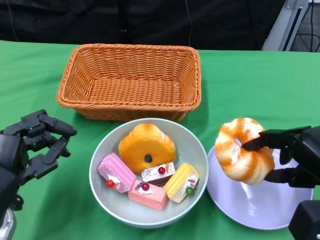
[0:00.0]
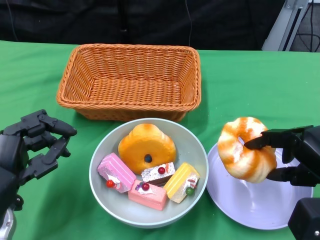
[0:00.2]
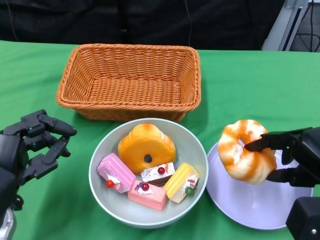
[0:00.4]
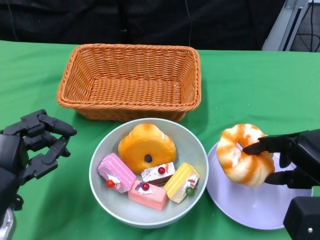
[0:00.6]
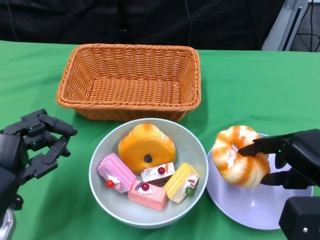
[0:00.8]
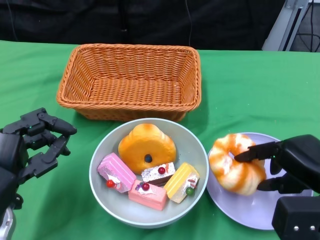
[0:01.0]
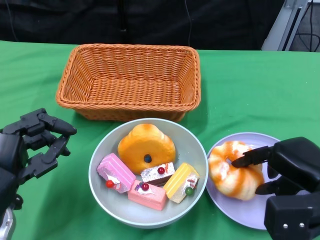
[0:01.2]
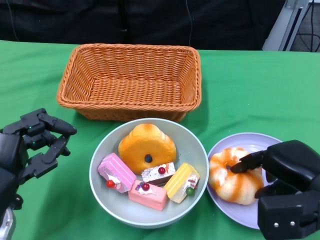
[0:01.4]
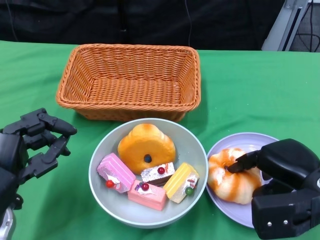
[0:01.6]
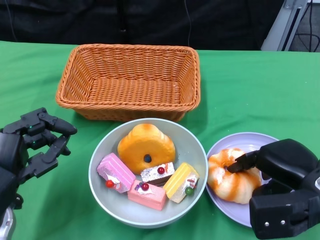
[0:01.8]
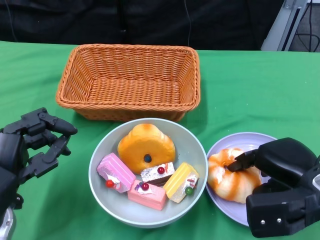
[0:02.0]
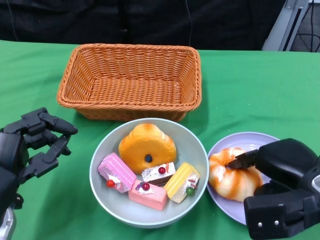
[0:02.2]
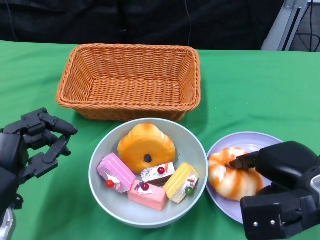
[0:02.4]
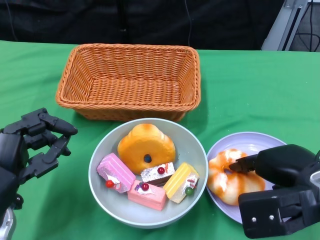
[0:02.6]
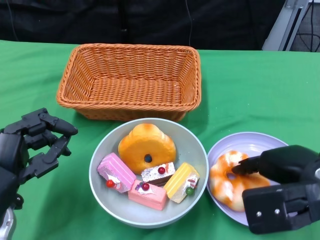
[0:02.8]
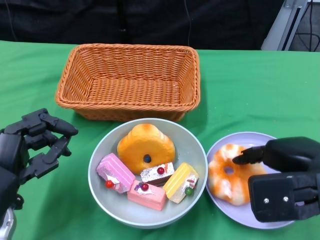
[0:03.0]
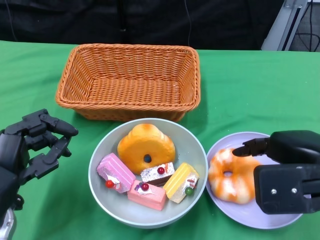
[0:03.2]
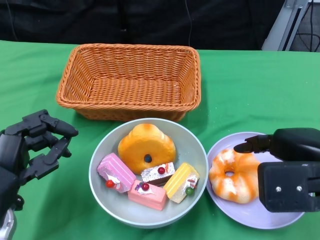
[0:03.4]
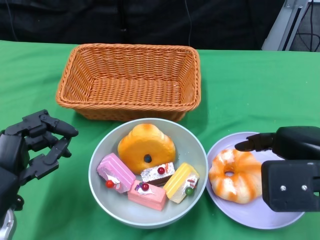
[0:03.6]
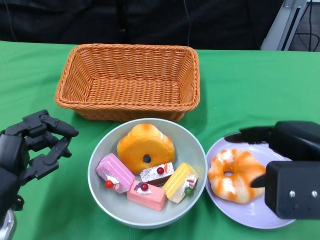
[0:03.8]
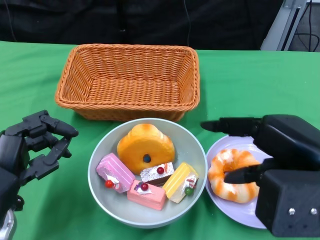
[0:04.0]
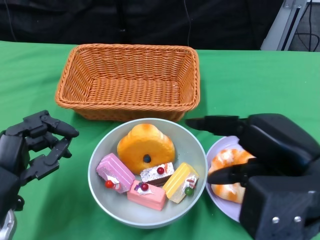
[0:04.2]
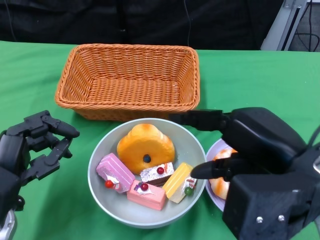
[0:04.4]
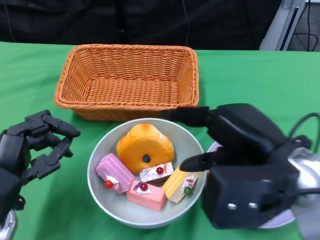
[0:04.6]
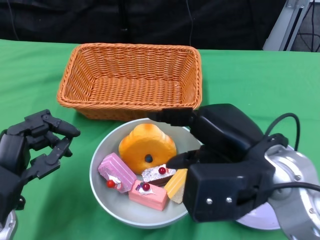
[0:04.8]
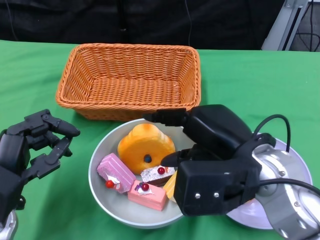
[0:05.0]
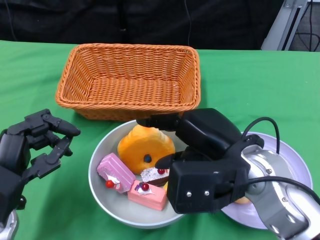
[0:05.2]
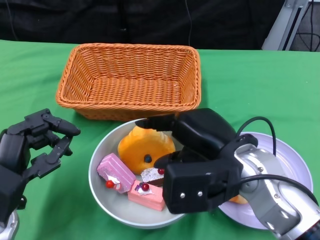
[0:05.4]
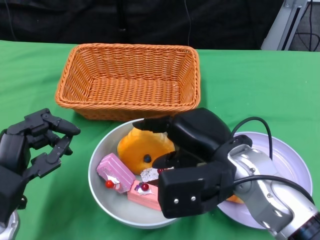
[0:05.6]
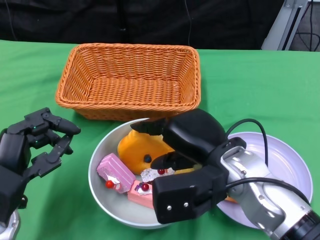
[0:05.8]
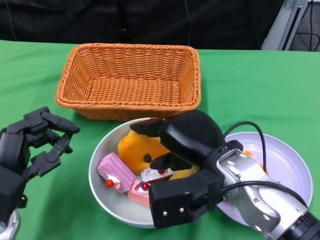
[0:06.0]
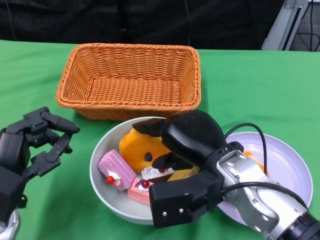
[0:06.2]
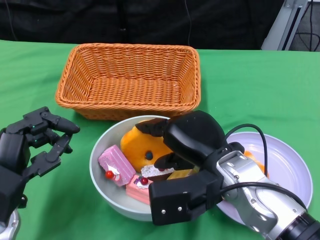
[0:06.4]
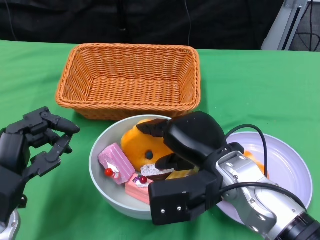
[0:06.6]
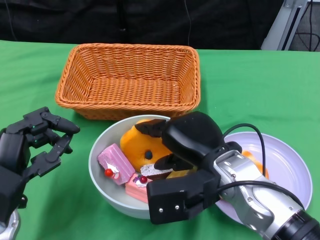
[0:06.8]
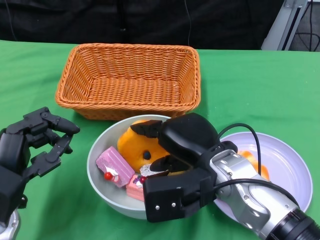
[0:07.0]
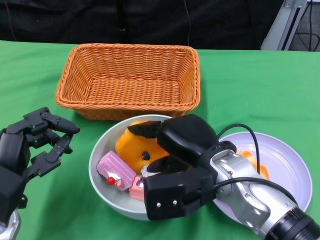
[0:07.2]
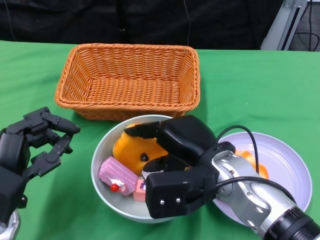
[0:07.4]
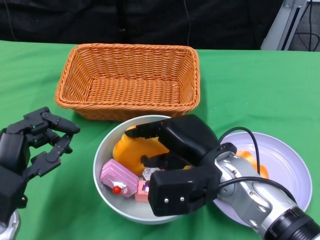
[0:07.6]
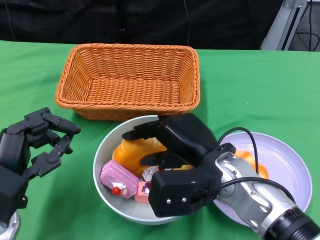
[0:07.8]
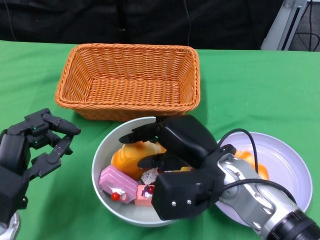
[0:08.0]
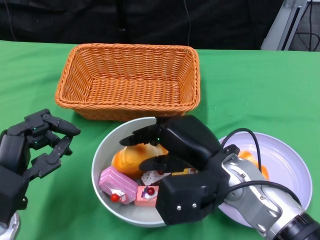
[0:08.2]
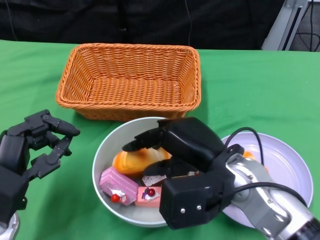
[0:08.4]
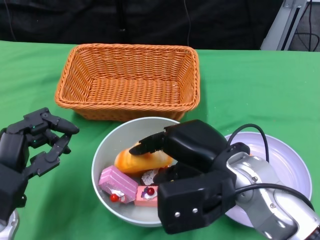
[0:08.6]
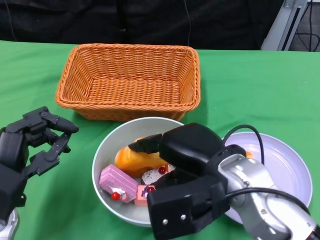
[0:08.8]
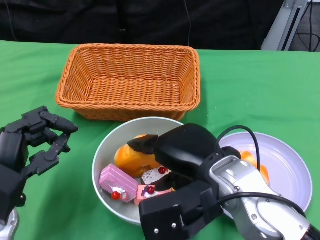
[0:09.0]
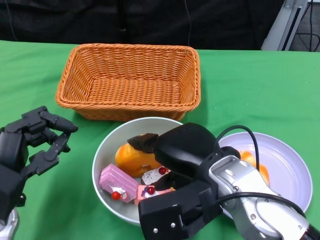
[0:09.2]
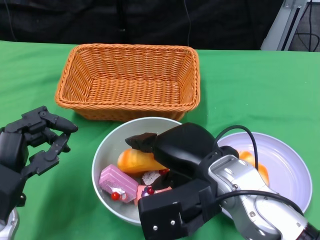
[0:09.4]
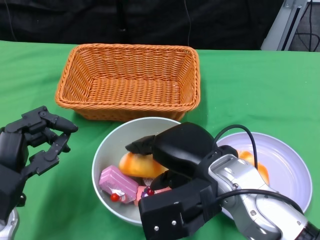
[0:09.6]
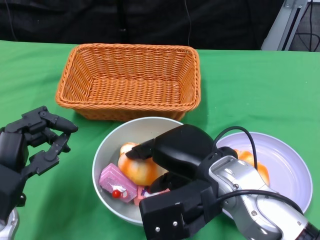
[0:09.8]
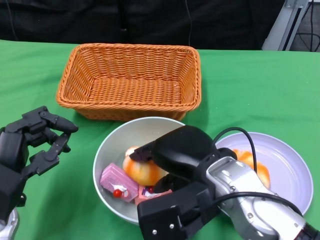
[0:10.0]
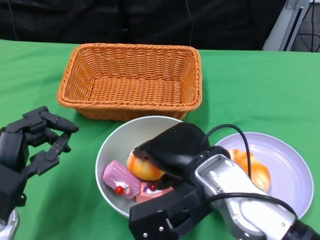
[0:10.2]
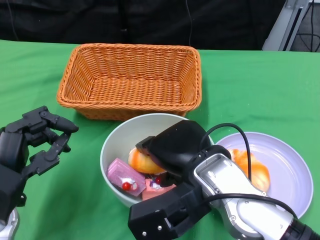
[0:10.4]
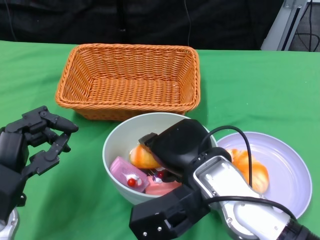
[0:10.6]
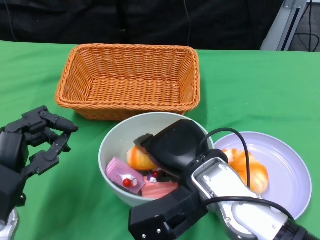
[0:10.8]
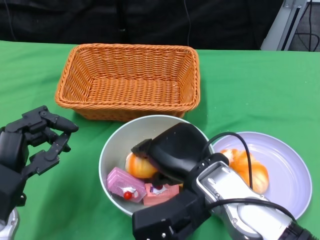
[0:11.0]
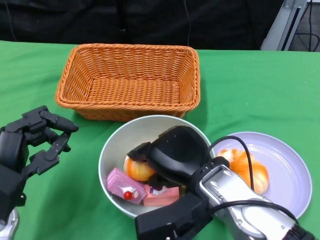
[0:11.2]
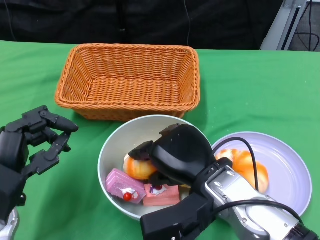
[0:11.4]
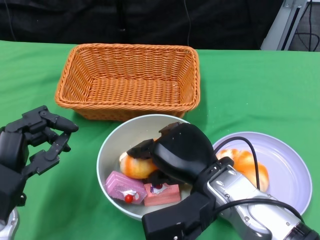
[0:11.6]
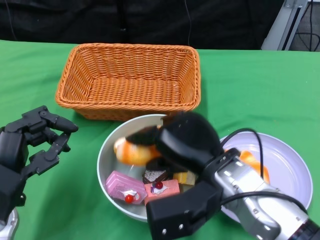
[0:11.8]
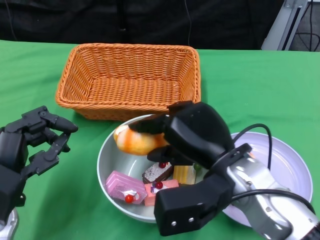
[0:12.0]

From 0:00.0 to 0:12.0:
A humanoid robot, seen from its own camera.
Step, from 0:00.0 to 0:03.4: Pick up the bread with the right gripper and place it on the plate.
From 0:00.0 to 0:01.6: The right hand moves roughly 5 cm.
From 0:01.6 to 0:03.0: The right hand is displaced upward by some 5 cm.
From 0:03.0 to 0:04.4: The right hand shifts by roughly 10 cm.
From 0:04.4 to 0:06.0: The right hand is displaced to the left, downward and forward by roughly 15 cm.
From 0:06.0 to 0:07.6: The hands move only a little.
From 0:09.0 to 0:10.4: The hands make only small movements.

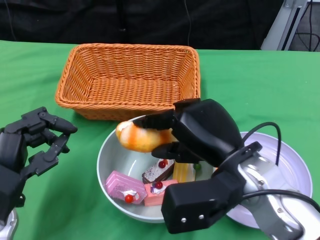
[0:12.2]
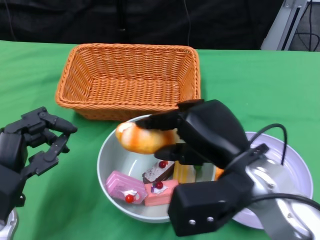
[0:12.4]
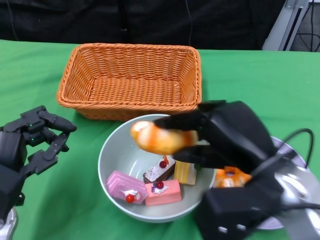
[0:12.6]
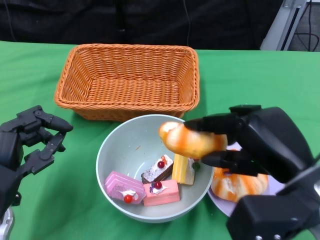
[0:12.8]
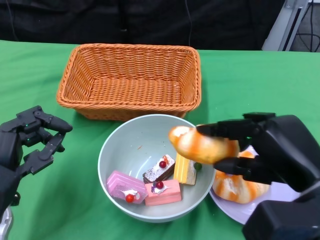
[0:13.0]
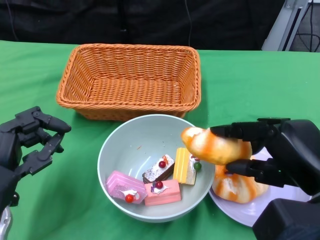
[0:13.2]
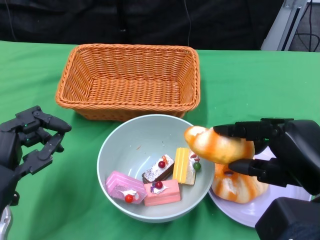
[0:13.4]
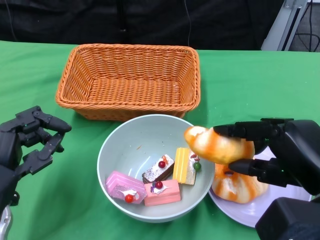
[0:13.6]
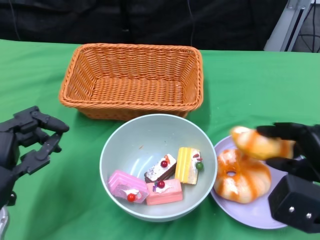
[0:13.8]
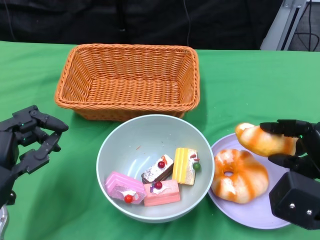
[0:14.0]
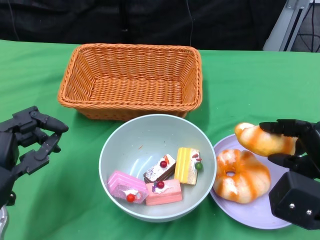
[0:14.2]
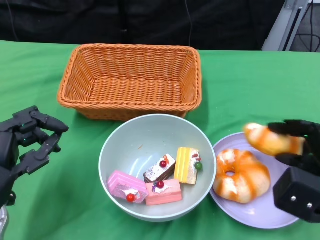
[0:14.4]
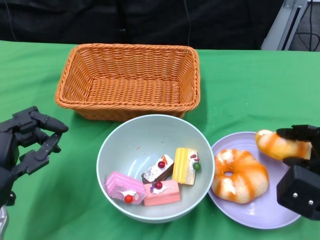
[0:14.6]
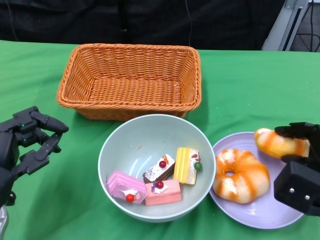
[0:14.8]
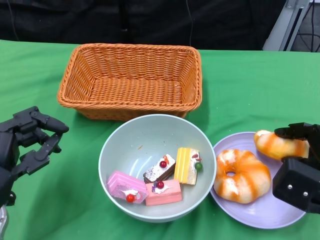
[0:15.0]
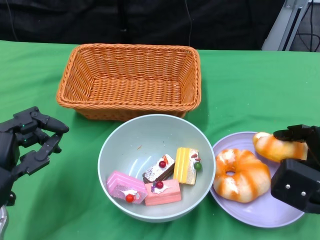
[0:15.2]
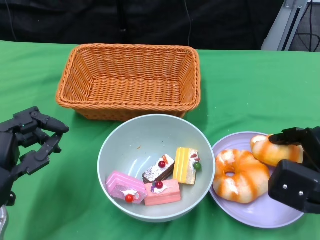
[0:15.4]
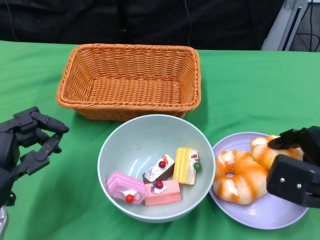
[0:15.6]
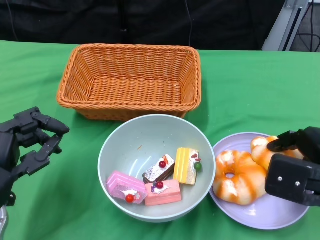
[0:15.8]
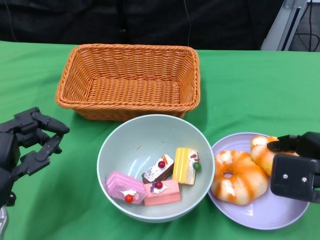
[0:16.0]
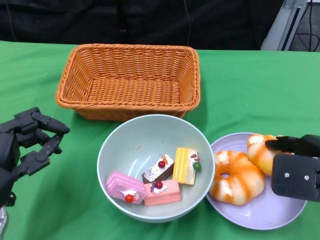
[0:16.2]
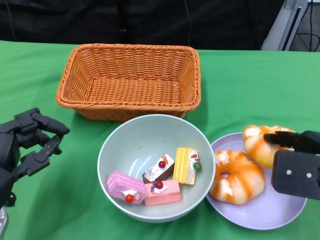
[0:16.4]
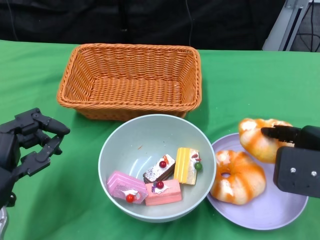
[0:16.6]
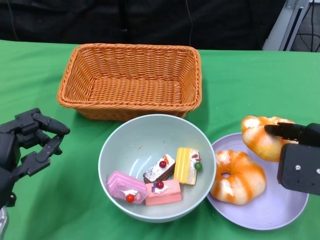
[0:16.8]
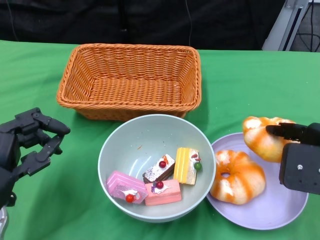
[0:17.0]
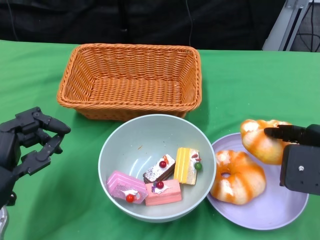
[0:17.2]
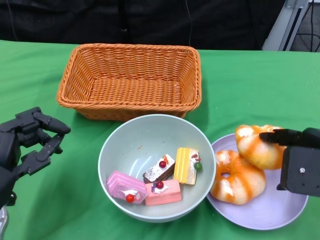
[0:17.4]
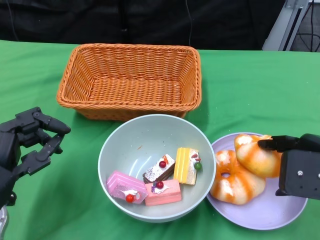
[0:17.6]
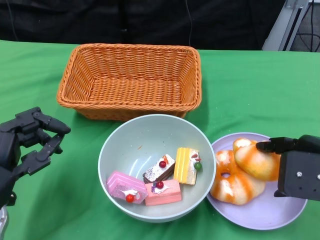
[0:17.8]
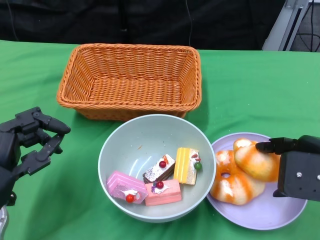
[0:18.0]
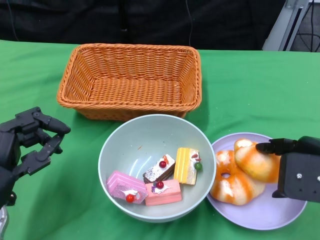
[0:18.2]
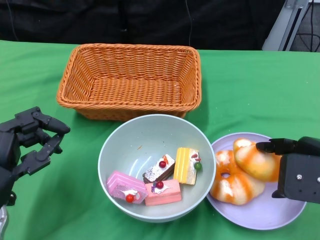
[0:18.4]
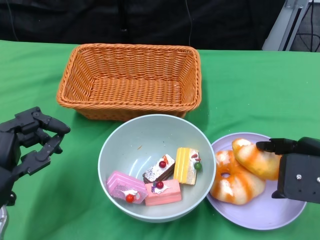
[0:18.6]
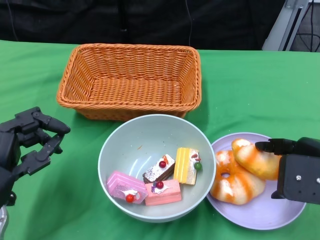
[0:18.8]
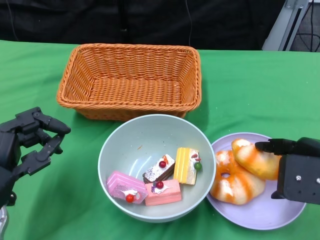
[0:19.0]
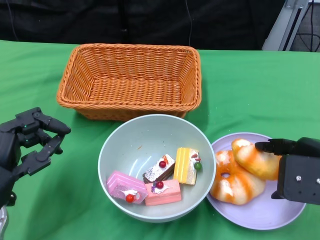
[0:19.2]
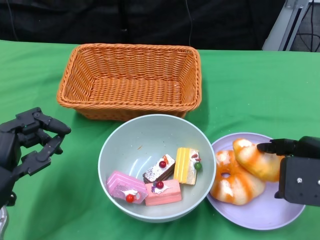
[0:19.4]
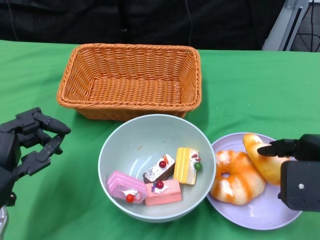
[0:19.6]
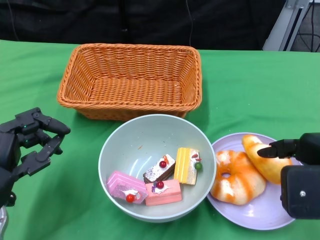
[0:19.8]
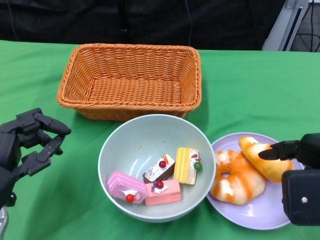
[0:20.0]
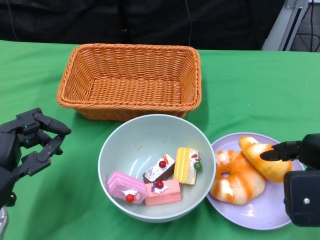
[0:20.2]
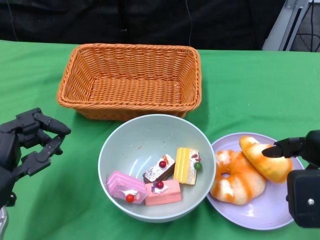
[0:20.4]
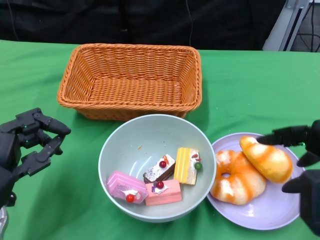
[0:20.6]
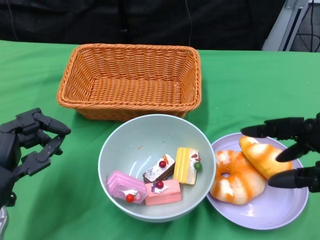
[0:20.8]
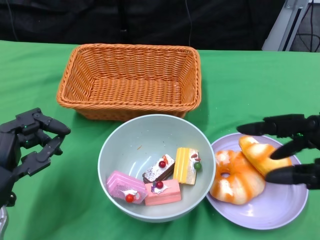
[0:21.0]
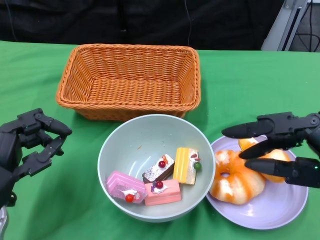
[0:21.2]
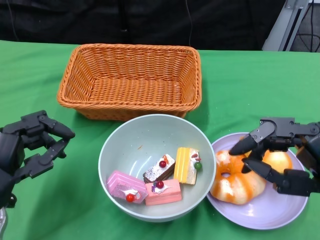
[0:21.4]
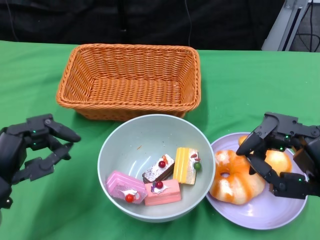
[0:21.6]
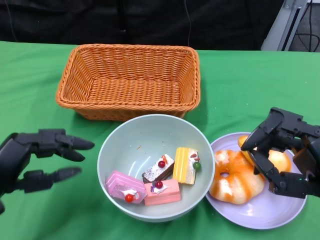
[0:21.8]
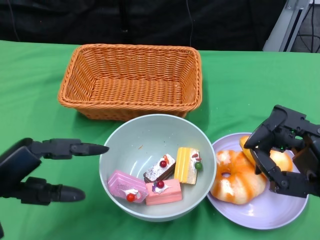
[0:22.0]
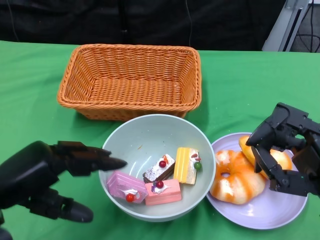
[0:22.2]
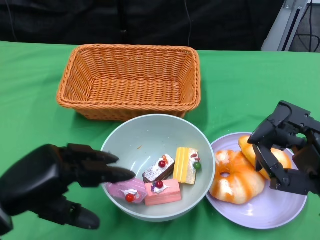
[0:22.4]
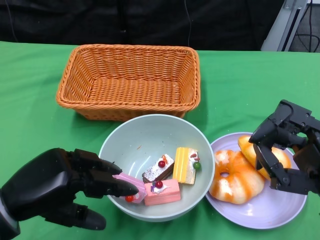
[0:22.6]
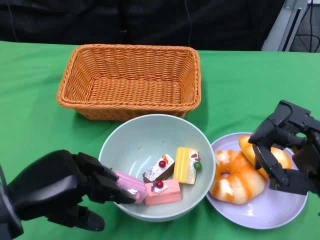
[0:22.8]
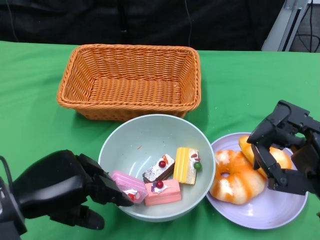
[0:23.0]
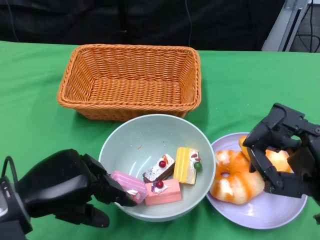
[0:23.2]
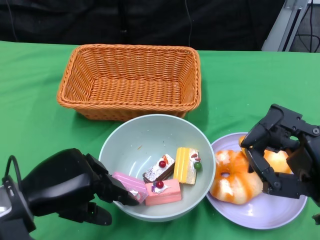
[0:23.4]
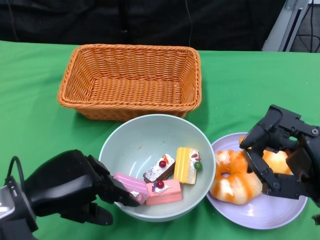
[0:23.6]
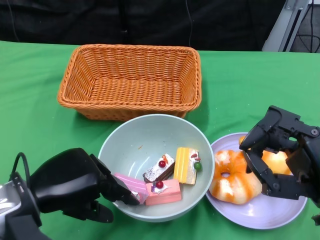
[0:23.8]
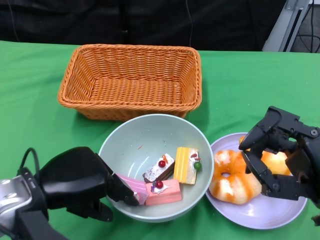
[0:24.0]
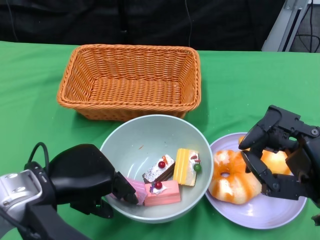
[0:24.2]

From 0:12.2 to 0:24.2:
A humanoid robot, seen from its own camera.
Step, from 0:12.2 to 0:20.4: Pick up the bread with the right gripper and place it on the plate.
From 0:12.2 to 0:13.8: The right hand shifts approximately 15 cm to the right.
From 0:13.8 to 0:15.2: The hands stay close to where they were, moving slightly.
From 0:15.2 to 0:16.6: The right hand is displaced upward by roughly 10 cm.
From 0:16.6 to 0:19.8: The hands move only a little.
From 0:21.2 to 0:22.6: The right hand is displaced downward by about 5 cm, while the left hand ends up some 5 cm from where it was.
From 0:22.6 to 0:24.2: The left hand shifts by some 5 cm.
